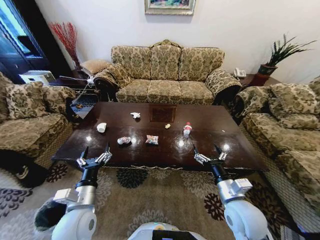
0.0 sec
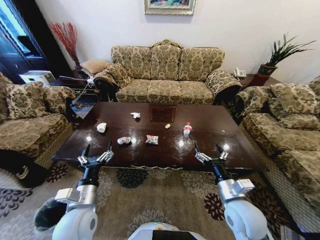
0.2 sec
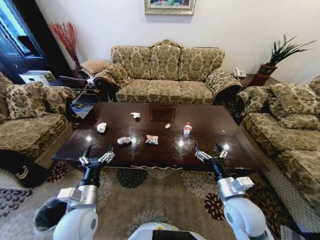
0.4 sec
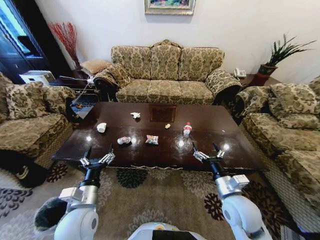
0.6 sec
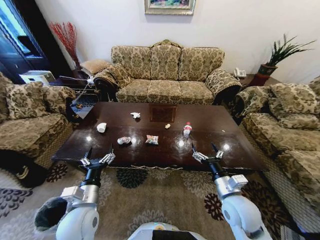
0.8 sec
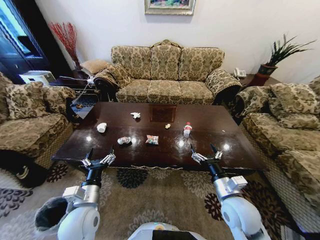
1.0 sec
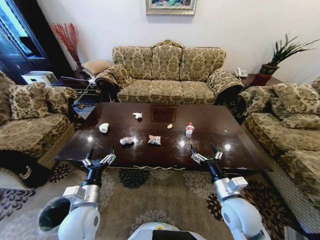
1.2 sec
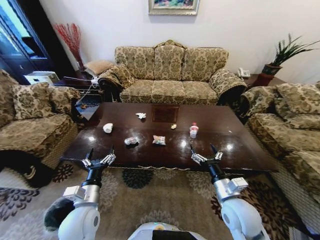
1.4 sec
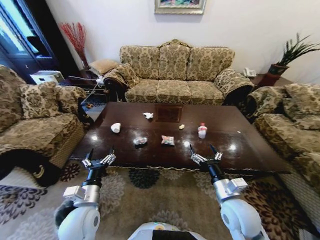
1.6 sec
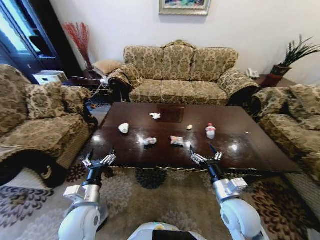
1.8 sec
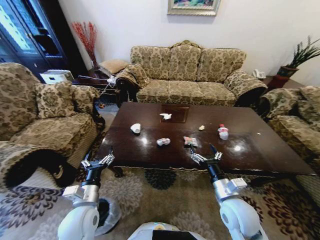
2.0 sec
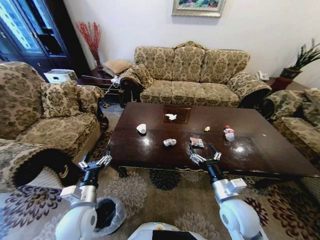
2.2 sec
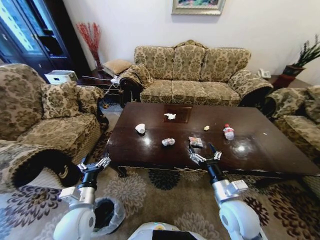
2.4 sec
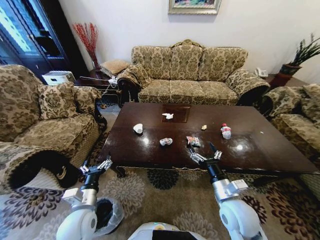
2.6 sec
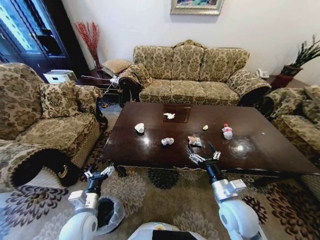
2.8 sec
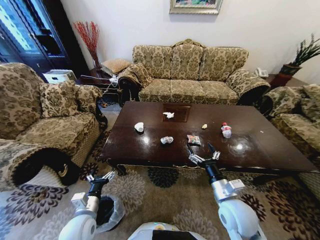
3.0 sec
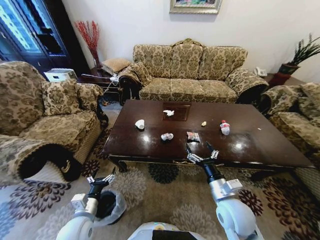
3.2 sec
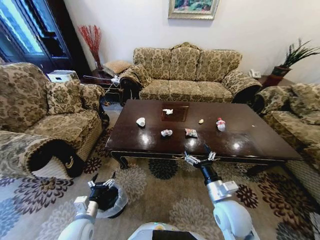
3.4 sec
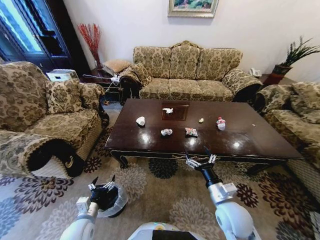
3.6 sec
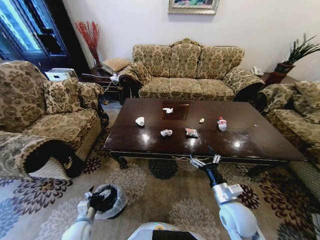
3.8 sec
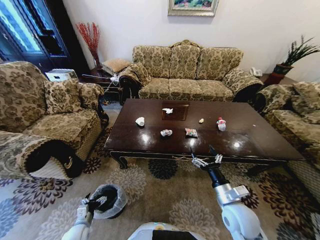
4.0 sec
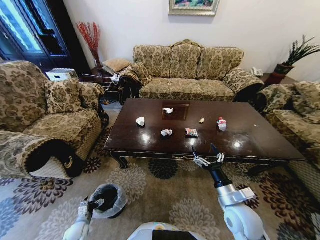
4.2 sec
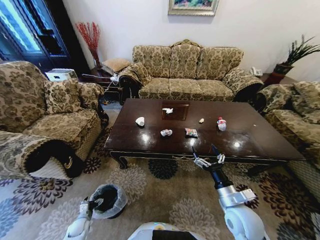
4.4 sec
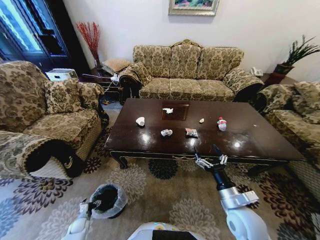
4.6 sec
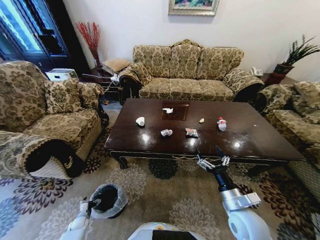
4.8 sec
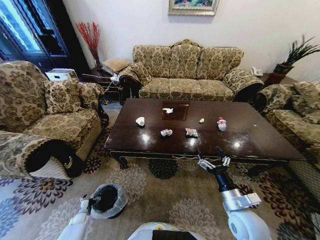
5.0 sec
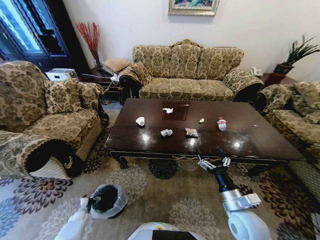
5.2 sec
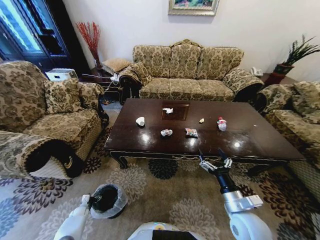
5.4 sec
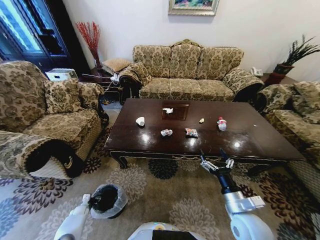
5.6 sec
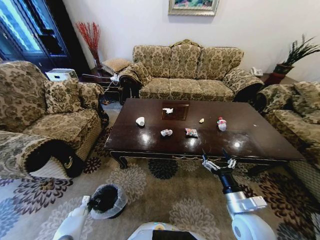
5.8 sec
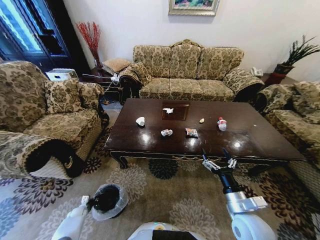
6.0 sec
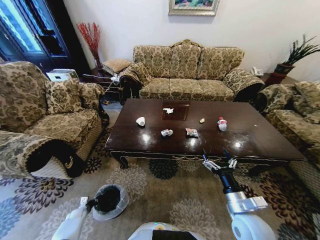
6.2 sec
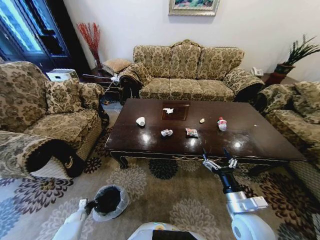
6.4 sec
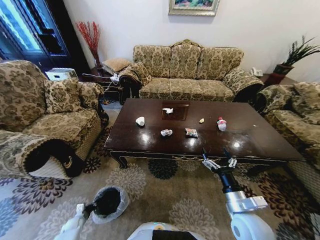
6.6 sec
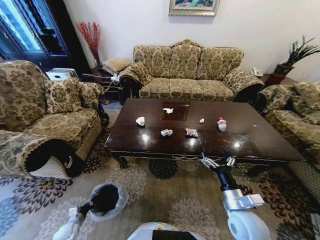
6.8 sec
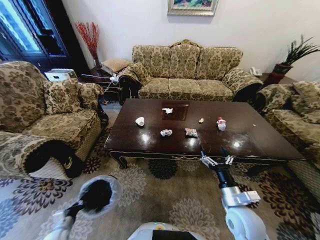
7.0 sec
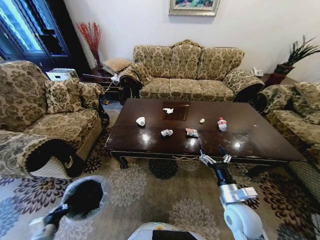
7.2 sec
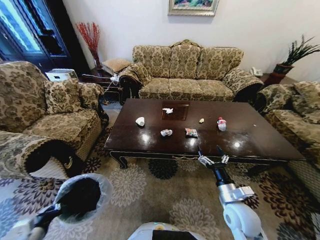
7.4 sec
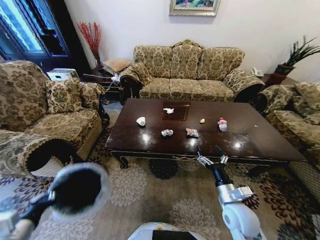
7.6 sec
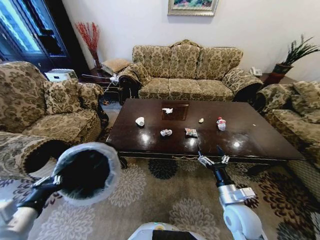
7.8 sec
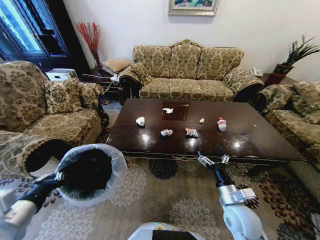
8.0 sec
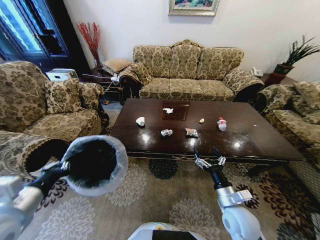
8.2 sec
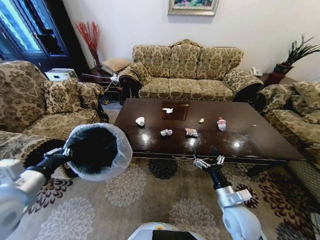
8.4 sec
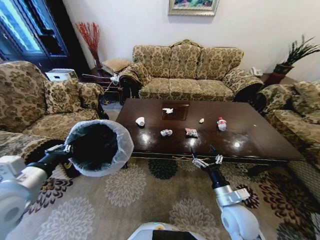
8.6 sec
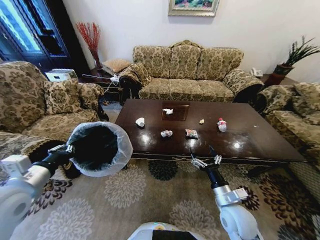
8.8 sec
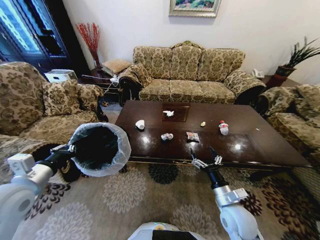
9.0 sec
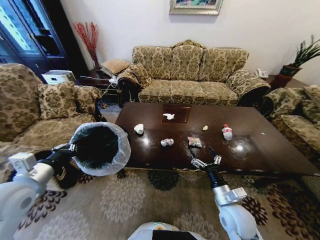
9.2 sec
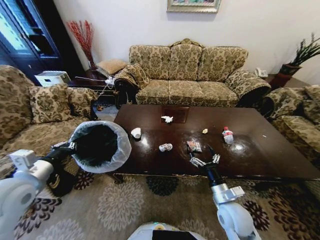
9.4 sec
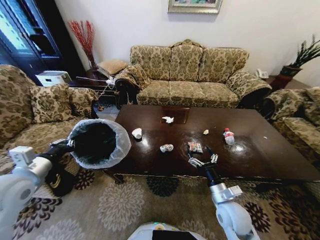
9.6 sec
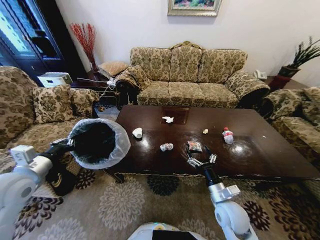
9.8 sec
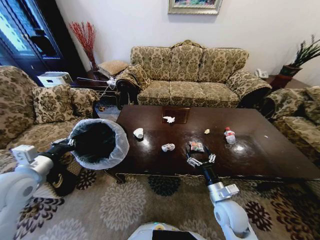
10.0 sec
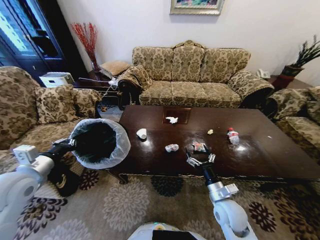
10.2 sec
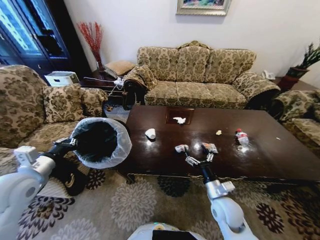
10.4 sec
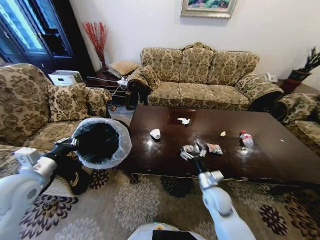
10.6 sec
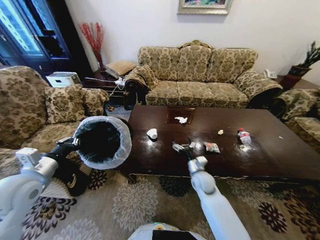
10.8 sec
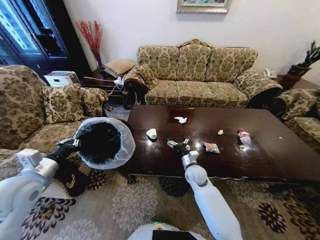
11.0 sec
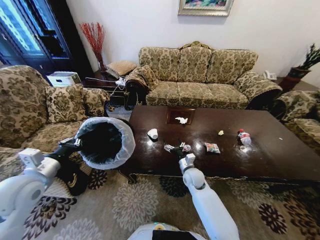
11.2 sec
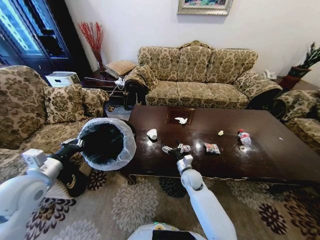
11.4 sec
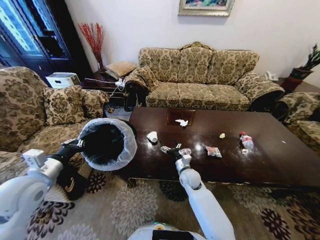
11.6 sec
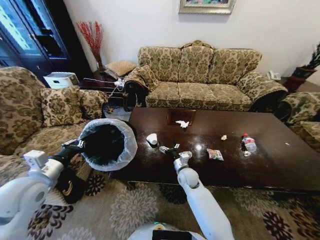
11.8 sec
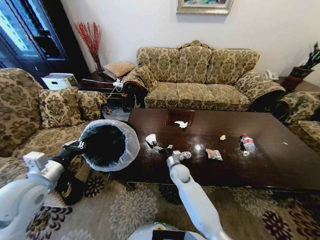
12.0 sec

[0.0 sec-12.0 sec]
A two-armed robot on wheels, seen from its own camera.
Task of the whole recording: Move to the front of the table and place the trash on the table into the trash bin.
1.6 sec to 3.0 sec: The left gripper heads downward, covering roughly 5 cm.
3.0 sec to 4.4 sec: The left gripper moves downward and to the left, roughly 30 cm.
4.4 sec to 6.0 sec: The left gripper is displaced to the left and forward by approximately 10 cm, and closes up.
6.0 sec to 7.6 sec: The left gripper goes about 40 cm upward and backward.
7.6 sec to 9.0 sec: The left gripper goes about 15 cm forward and upward.
10.4 sec to 12.0 sec: The right gripper heads forward and to the left, covering approximately 20 cm.

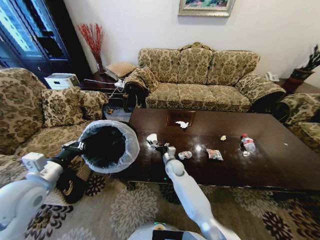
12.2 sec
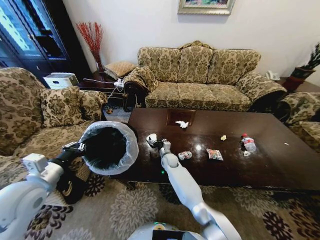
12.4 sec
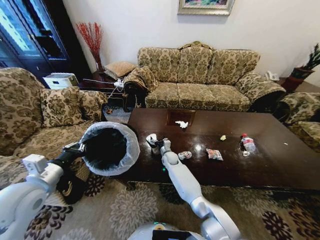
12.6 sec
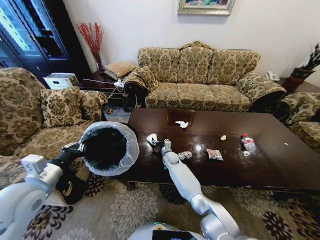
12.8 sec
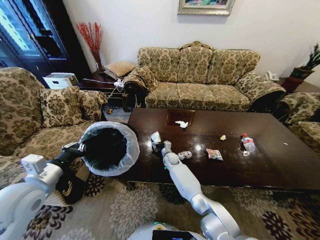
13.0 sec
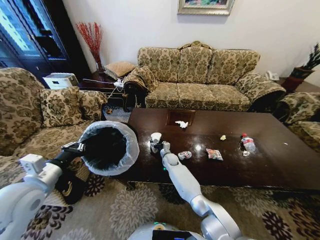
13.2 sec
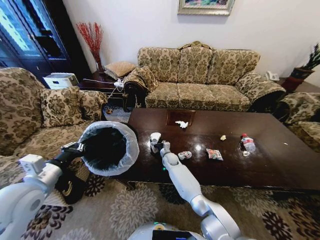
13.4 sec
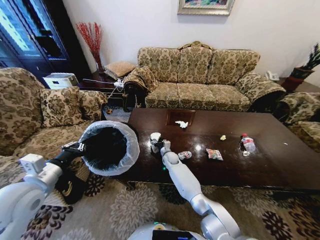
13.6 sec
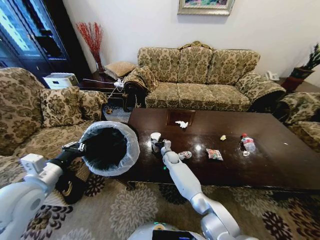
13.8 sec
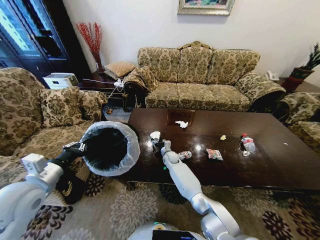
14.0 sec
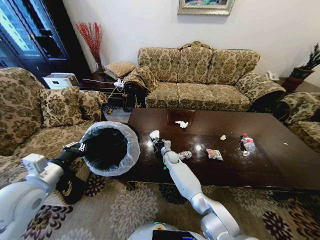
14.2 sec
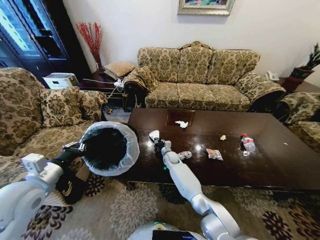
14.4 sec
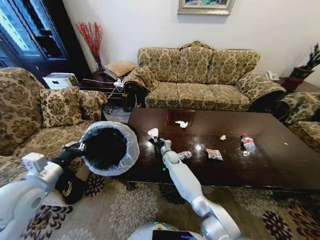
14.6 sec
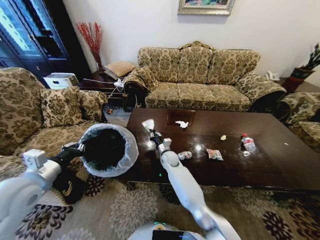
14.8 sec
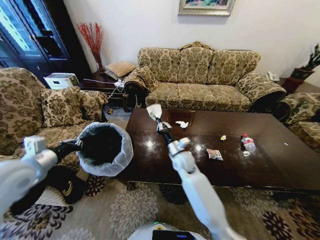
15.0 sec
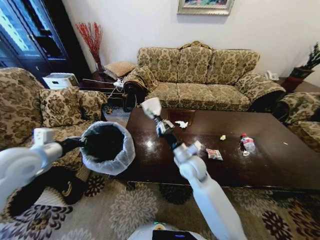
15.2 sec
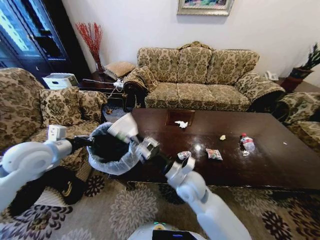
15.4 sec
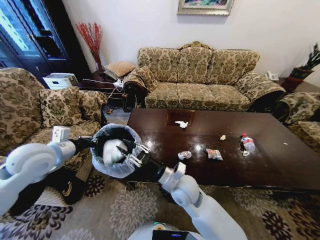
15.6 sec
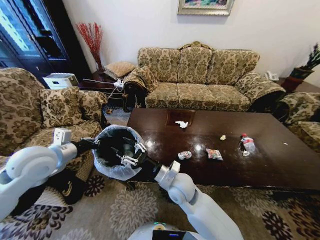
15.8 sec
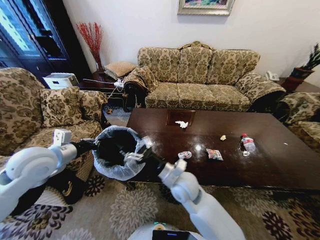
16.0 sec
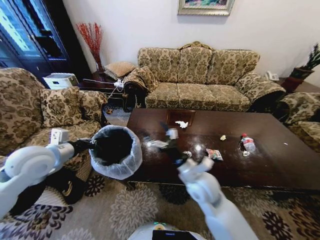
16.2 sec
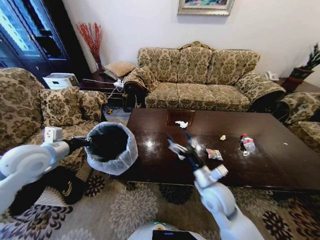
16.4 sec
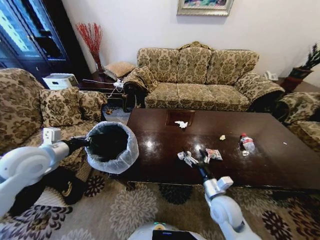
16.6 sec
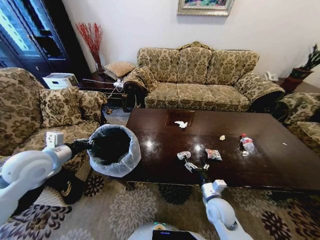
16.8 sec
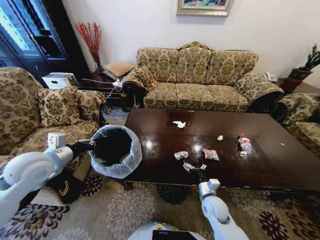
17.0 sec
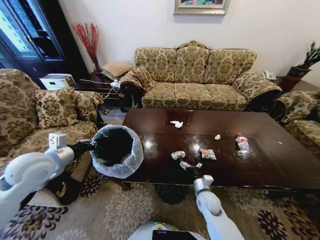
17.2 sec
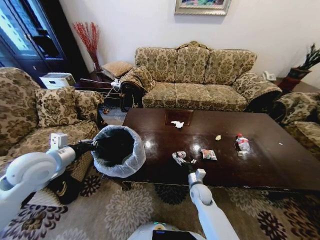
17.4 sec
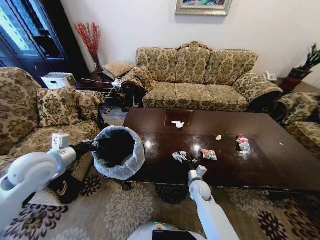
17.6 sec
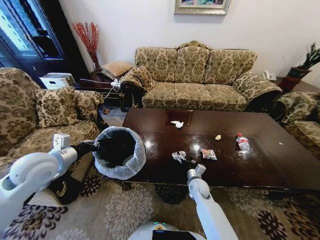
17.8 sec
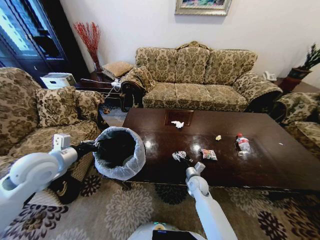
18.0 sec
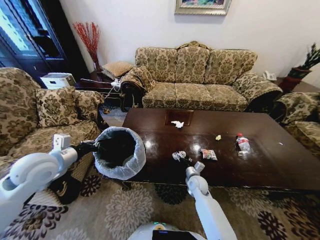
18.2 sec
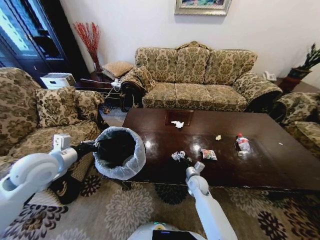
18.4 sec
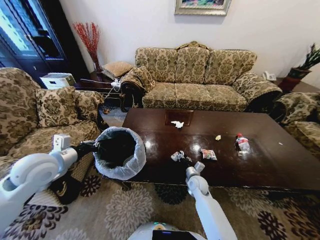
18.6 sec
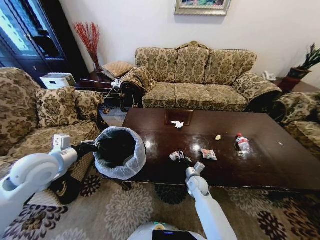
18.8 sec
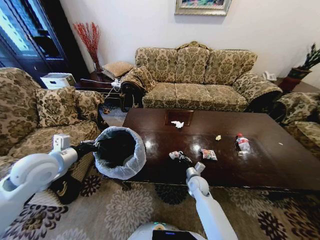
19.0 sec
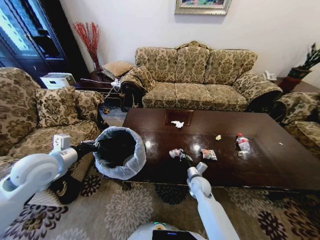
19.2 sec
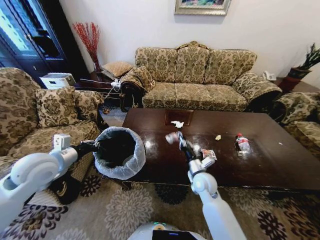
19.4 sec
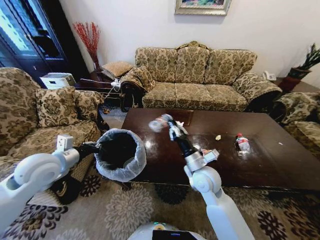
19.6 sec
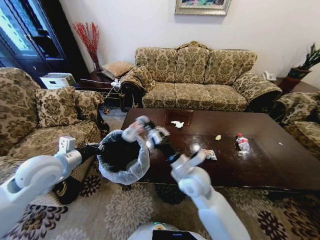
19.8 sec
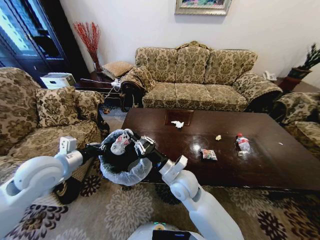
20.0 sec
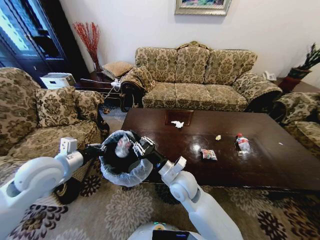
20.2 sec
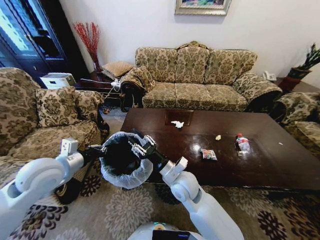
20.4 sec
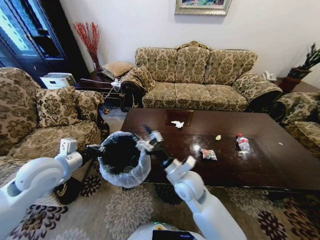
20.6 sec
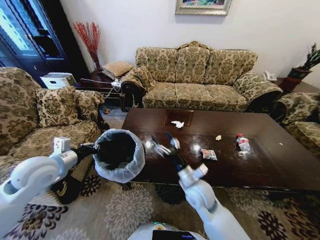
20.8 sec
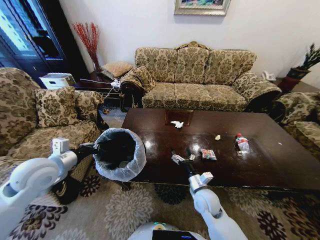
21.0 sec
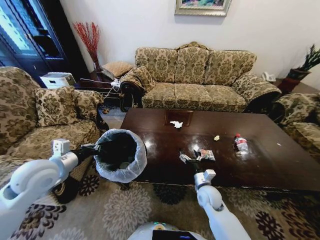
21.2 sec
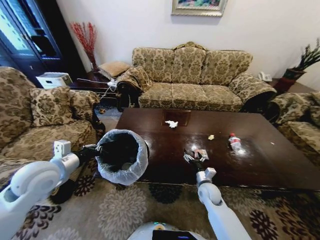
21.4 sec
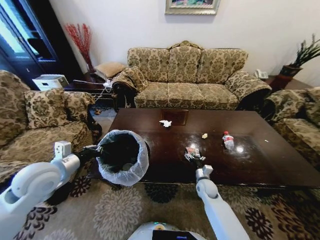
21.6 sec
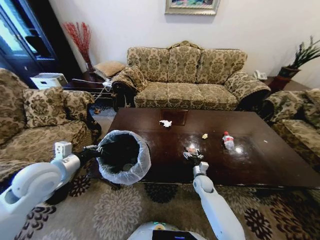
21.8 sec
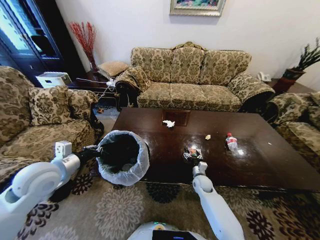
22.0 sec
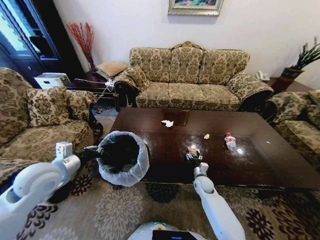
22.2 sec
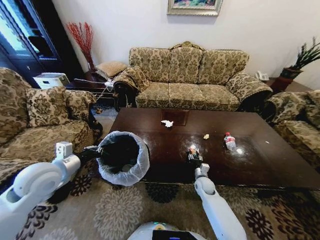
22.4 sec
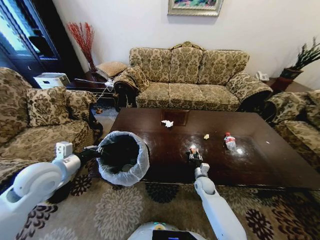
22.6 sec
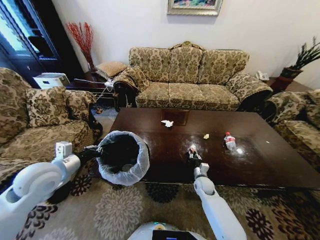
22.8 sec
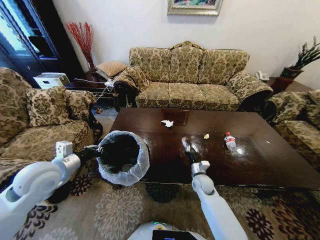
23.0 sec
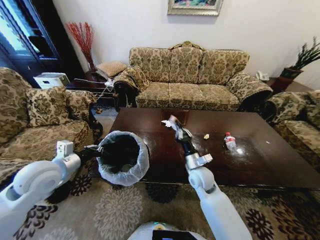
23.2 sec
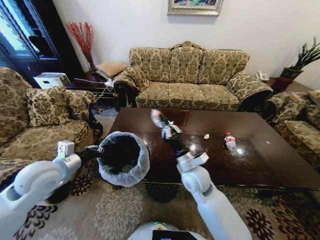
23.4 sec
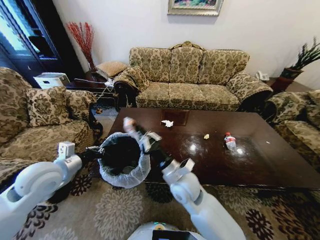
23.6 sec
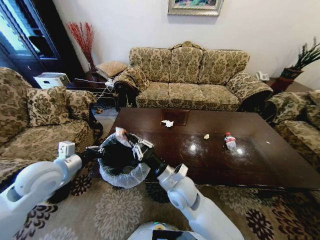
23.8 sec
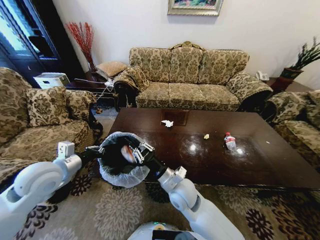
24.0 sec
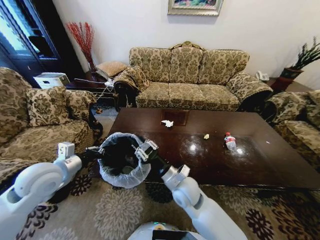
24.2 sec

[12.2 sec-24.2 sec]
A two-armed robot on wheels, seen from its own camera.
Task of the whole recording: Move to the front of the table and place the trash on the table into the trash bin.
12.2 sec to 13.8 sec: The right gripper moves forward, some 5 cm.
13.8 sec to 15.2 sec: The left gripper moves forward and upward, approximately 10 cm; the right gripper moves upward and backward, approximately 25 cm, and closes up.
15.2 sec to 16.6 sec: The right gripper is displaced backward, to the right and downward by roughly 20 cm, and opens up.
16.6 sec to 18.2 sec: The right gripper heads forward and downward, covering roughly 15 cm.
18.2 sec to 19.8 sec: The right gripper moves upward, about 20 cm, and closes.
19.8 sec to 21.2 sec: The right gripper goes about 20 cm downward and to the right, and opens up.
21.2 sec to 22.6 sec: The right gripper goes about 10 cm downward and forward, and closes its fingers.
22.6 sec to 24.2 sec: The right gripper moves upward, to the left and backward, some 25 cm.
